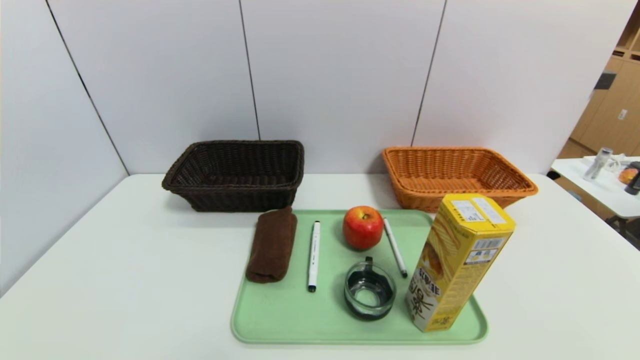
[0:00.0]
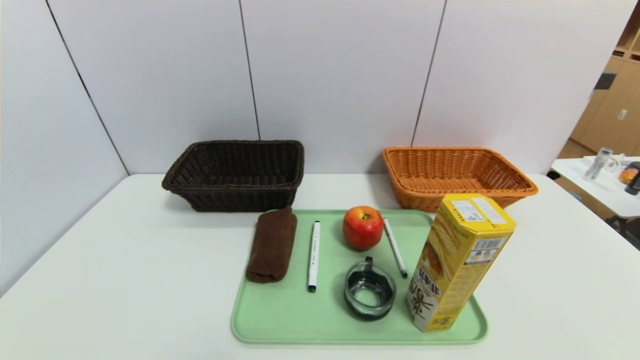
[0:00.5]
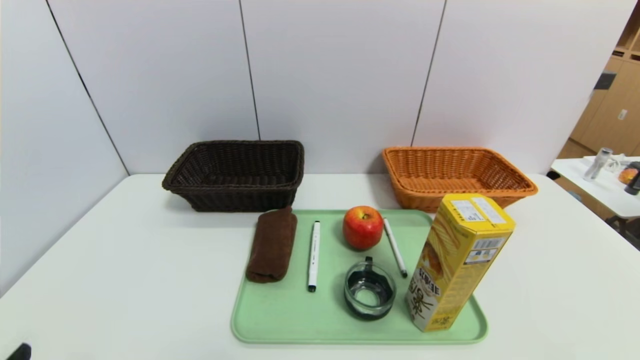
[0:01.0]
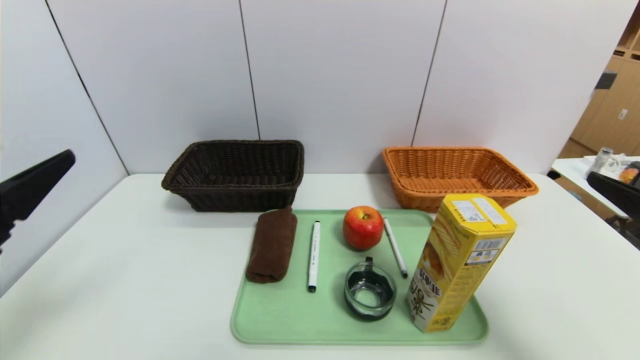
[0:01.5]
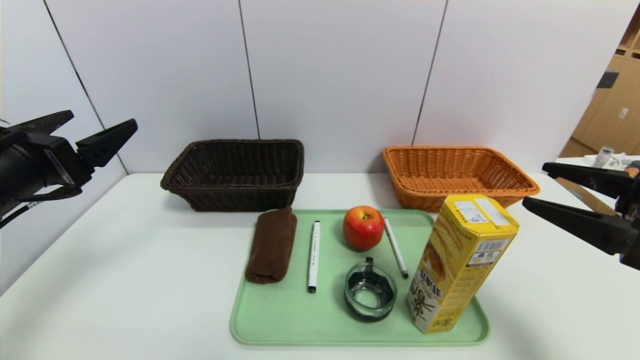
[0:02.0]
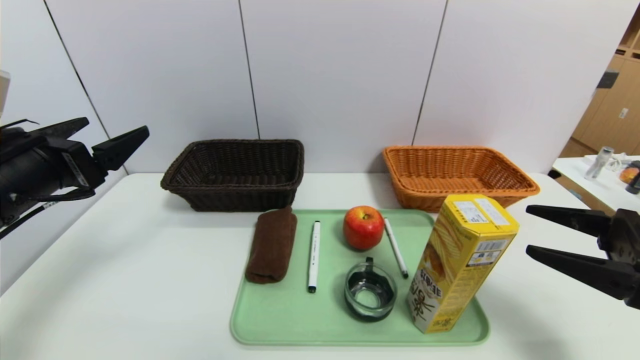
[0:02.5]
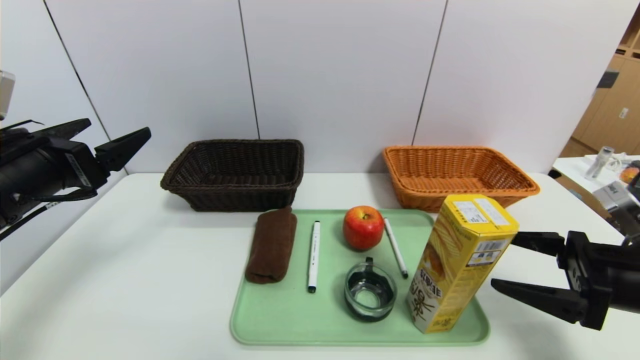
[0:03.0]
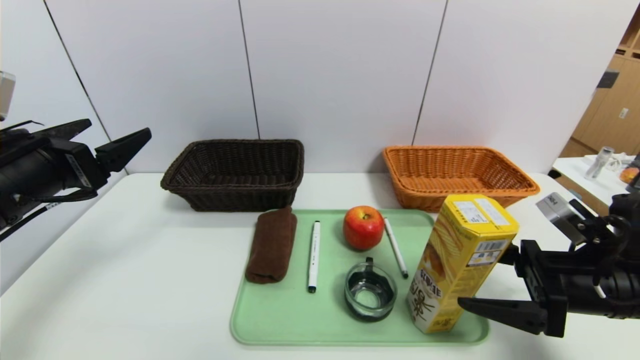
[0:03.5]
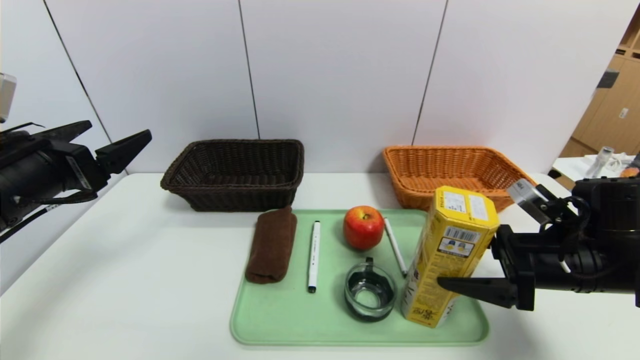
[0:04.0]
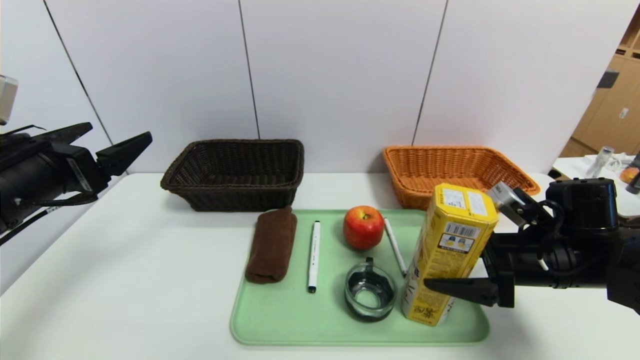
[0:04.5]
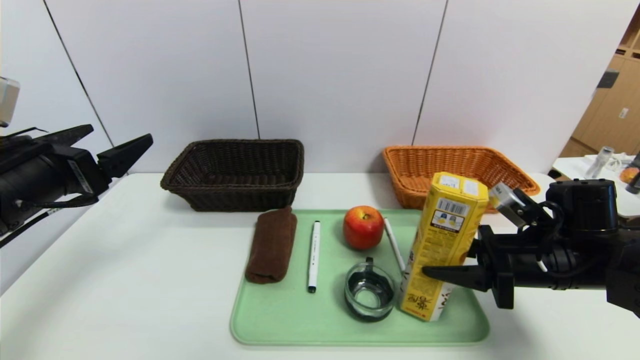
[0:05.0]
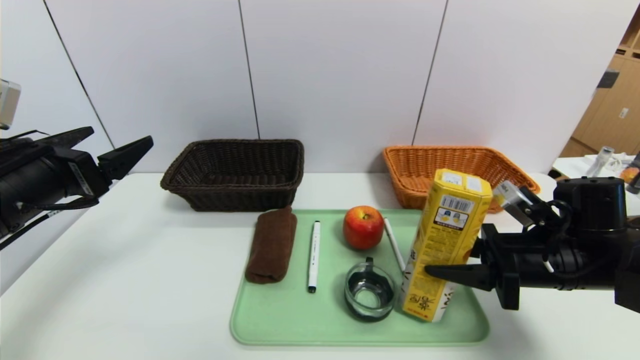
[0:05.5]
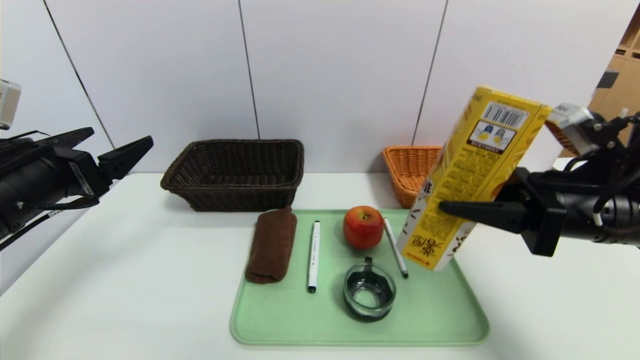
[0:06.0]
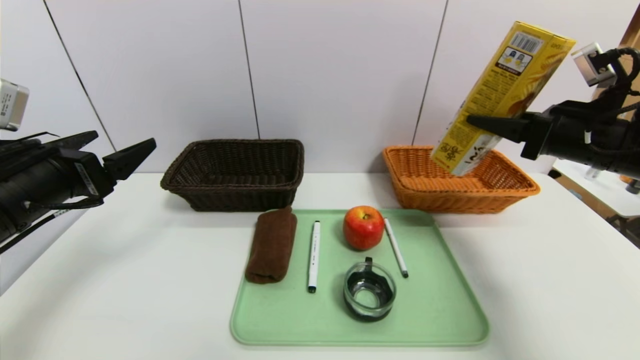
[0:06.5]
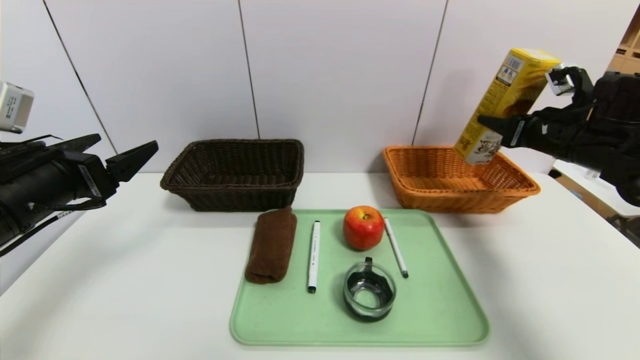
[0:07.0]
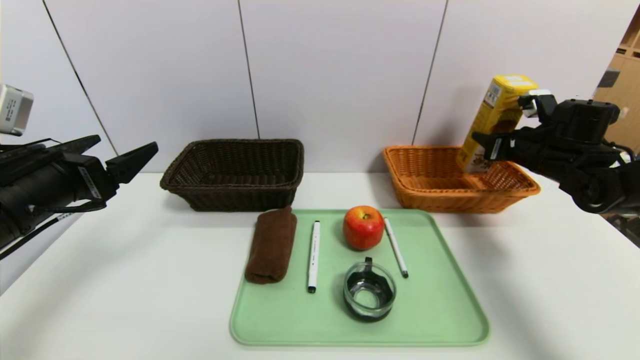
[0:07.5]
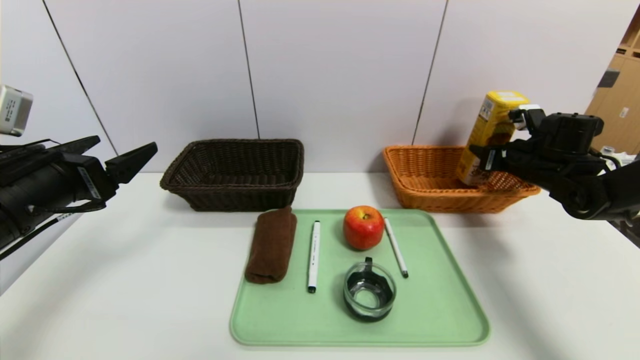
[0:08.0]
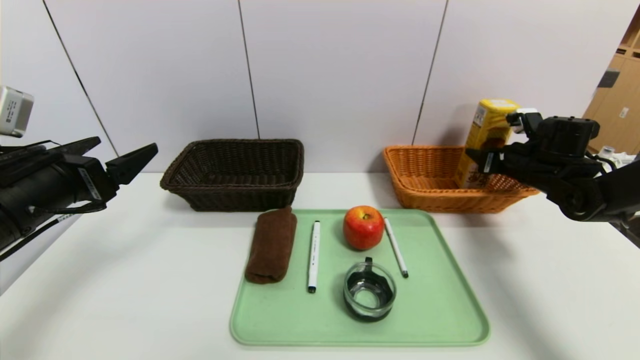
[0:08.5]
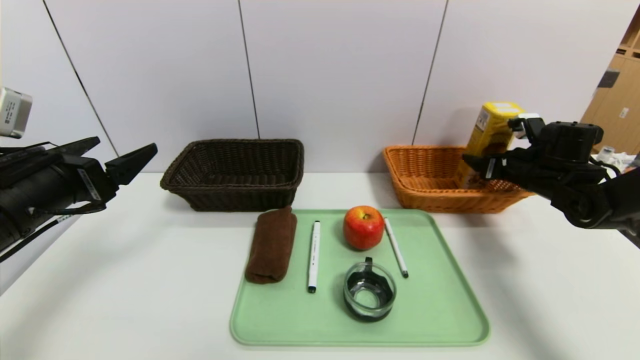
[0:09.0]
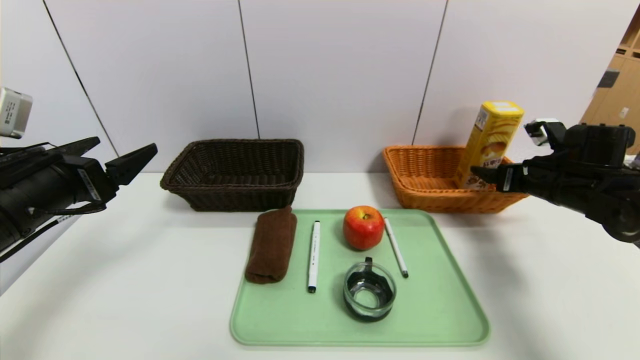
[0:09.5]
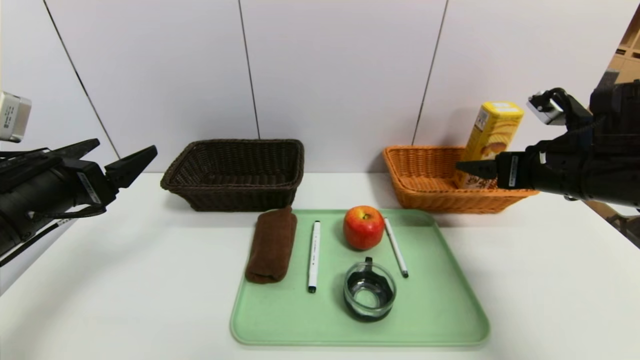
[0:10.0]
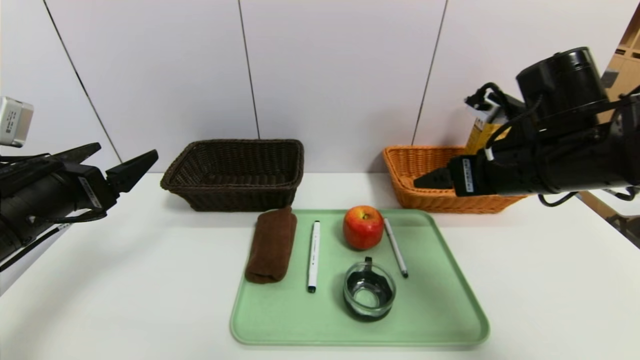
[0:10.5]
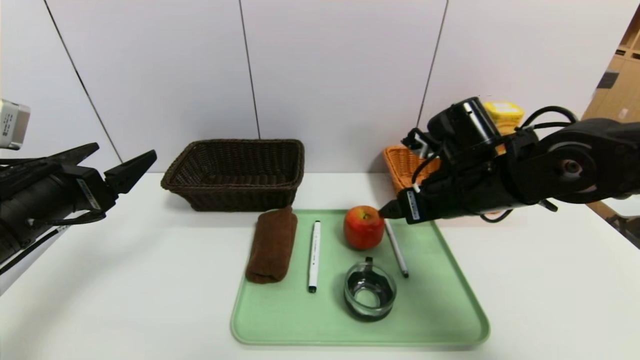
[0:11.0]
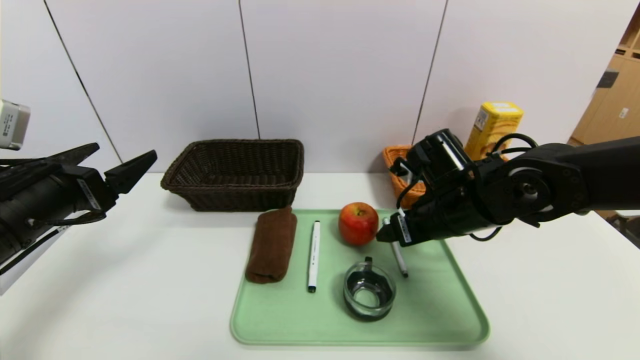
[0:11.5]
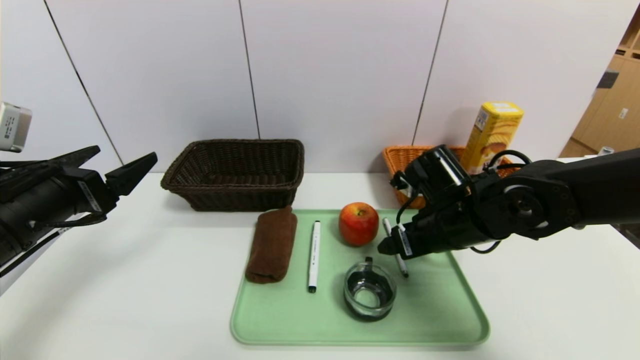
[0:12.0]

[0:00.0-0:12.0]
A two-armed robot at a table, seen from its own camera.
Task of the whole recording: place the food in the right basket with the right gripper, and place the non food items in the left basket with the left gripper.
Step, 0:00.0 to 0:10.0: Grasp the potato chips and put it in the right basket.
0:00.0 to 0:02.0: The two grippers go roughly 25 cm forward and upward.
0:02.0 to 0:04.0: The right gripper shifts about 10 cm downward and forward.
0:04.0 to 0:06.0: The right gripper travels upward by approximately 10 cm, and closes up.
0:06.0 to 0:08.0: The right gripper travels forward and to the right by some 20 cm.
0:08.0 to 0:10.0: The right gripper goes some 15 cm backward, upward and to the left, and opens its fingers.
0:10.0 to 0:12.0: The right gripper is displaced to the left and downward by about 15 cm.

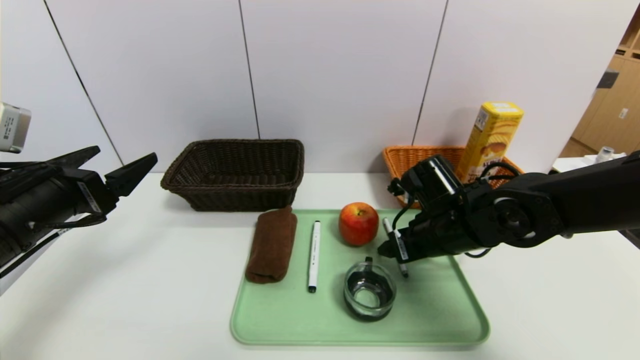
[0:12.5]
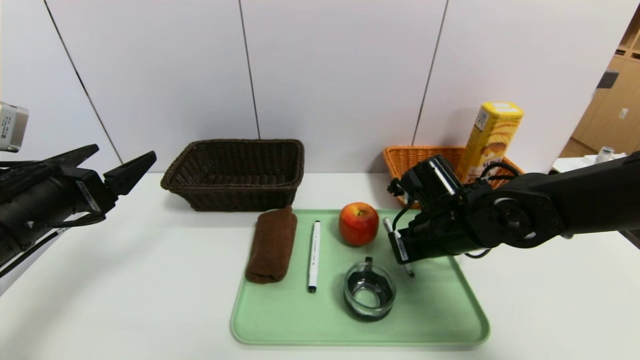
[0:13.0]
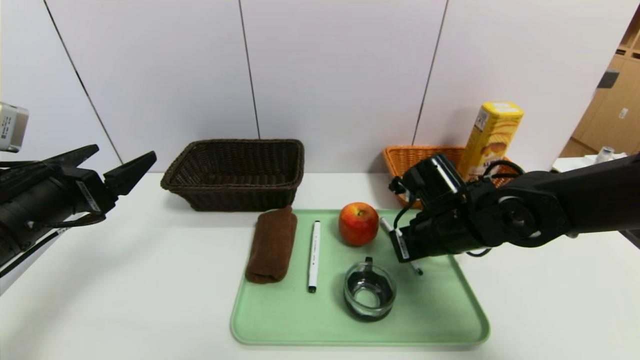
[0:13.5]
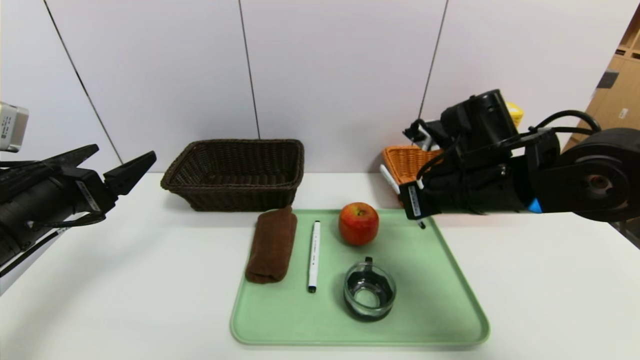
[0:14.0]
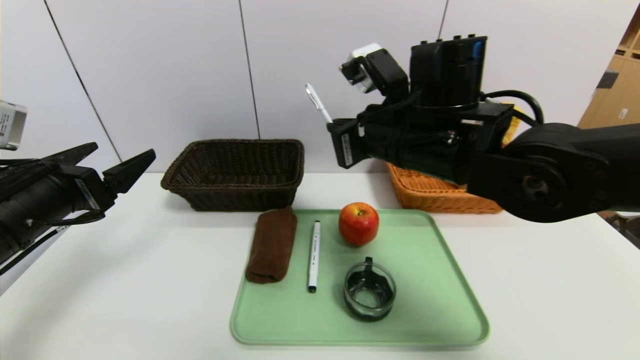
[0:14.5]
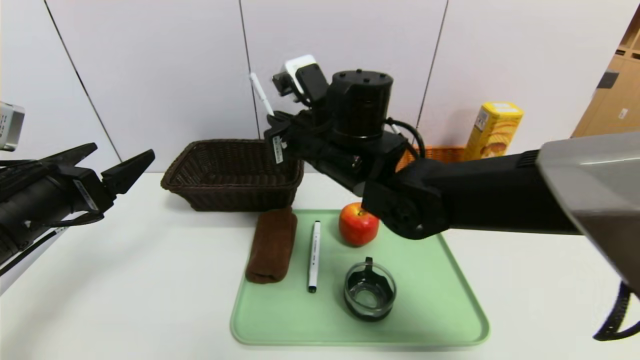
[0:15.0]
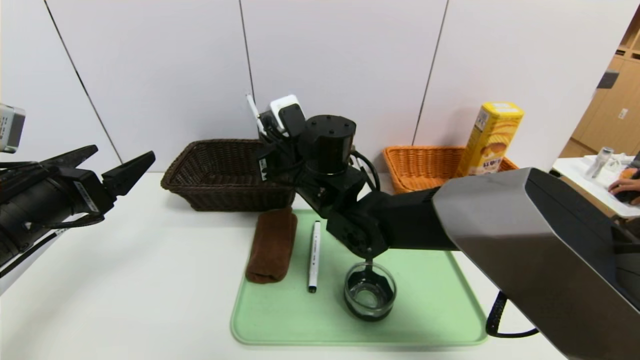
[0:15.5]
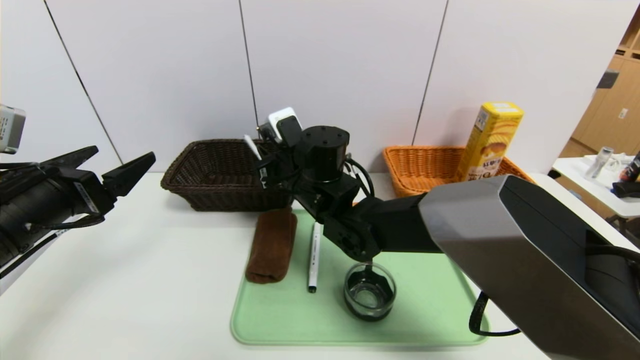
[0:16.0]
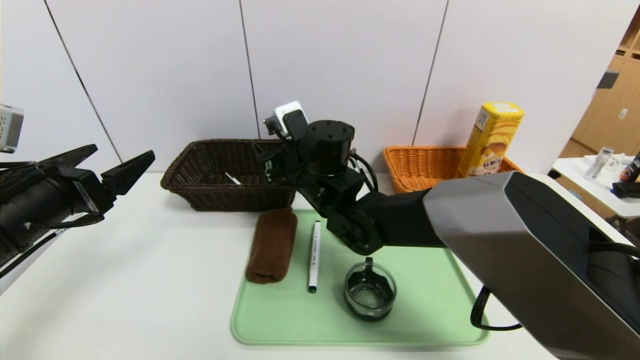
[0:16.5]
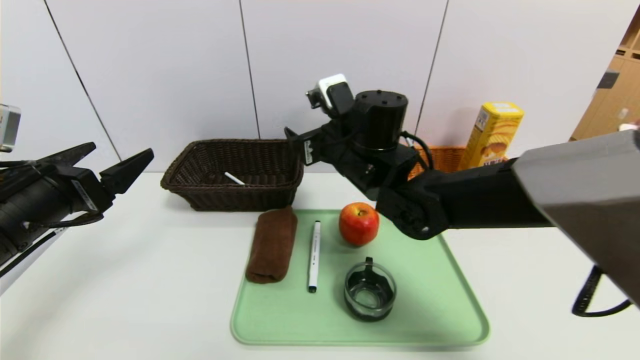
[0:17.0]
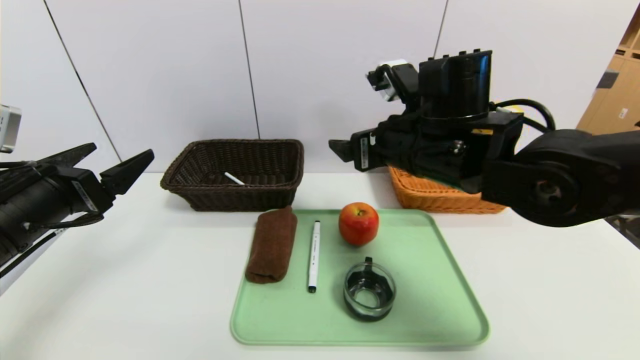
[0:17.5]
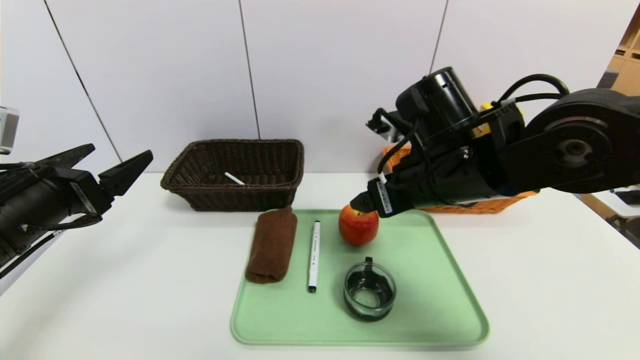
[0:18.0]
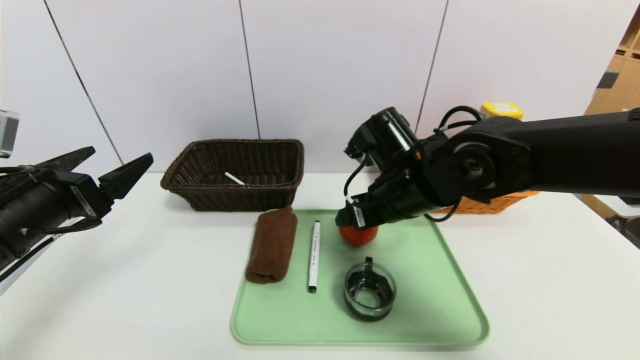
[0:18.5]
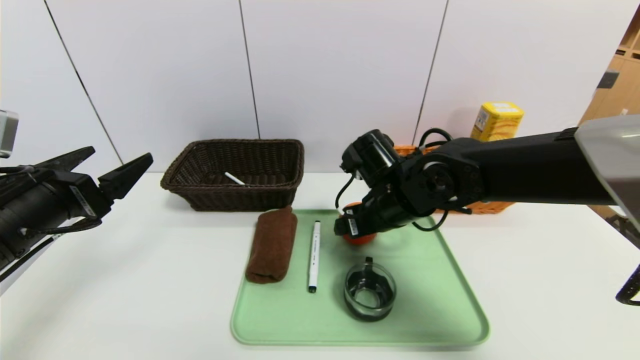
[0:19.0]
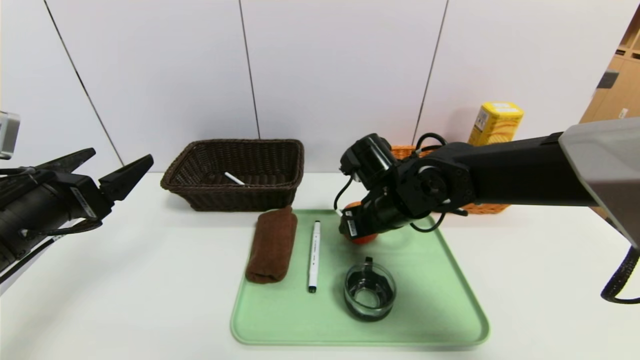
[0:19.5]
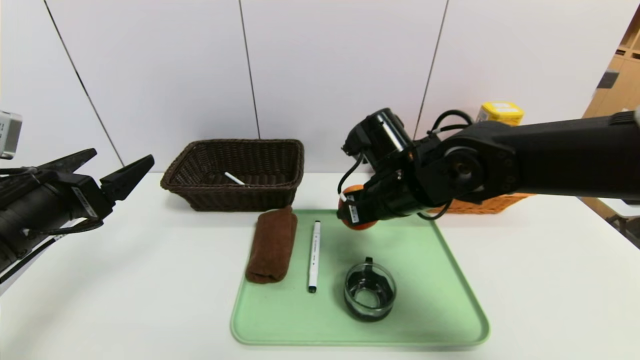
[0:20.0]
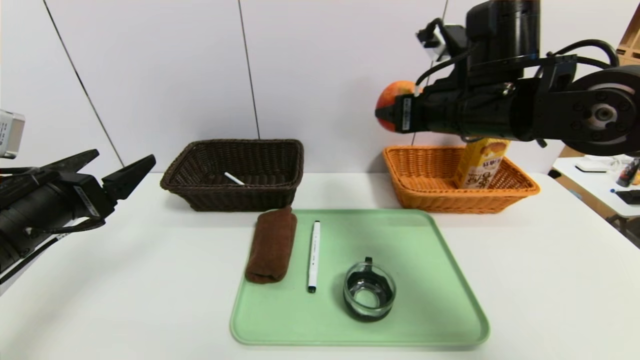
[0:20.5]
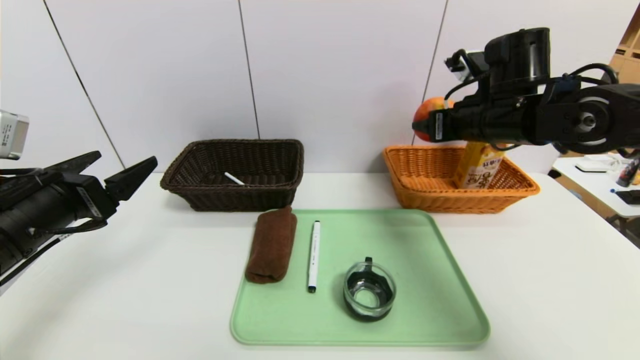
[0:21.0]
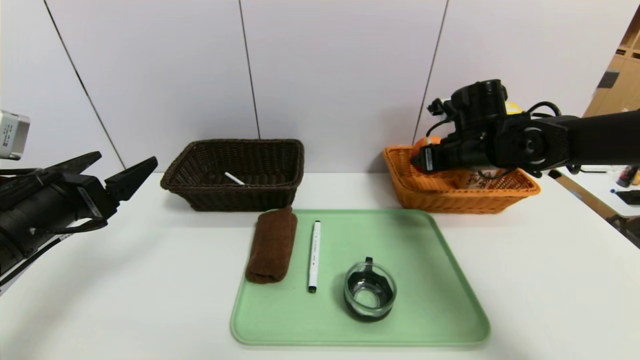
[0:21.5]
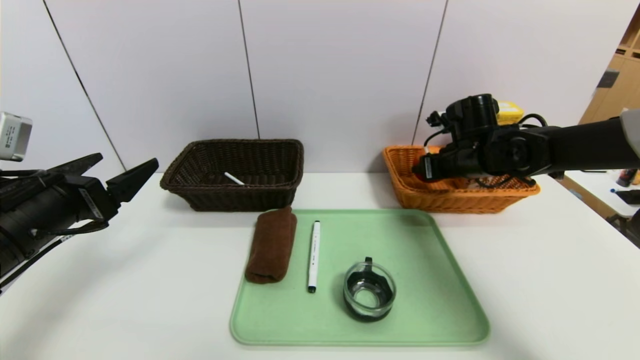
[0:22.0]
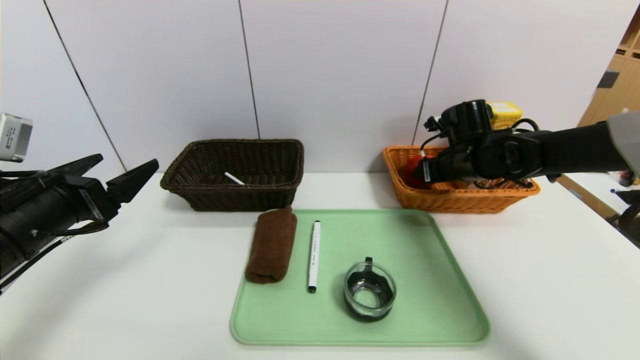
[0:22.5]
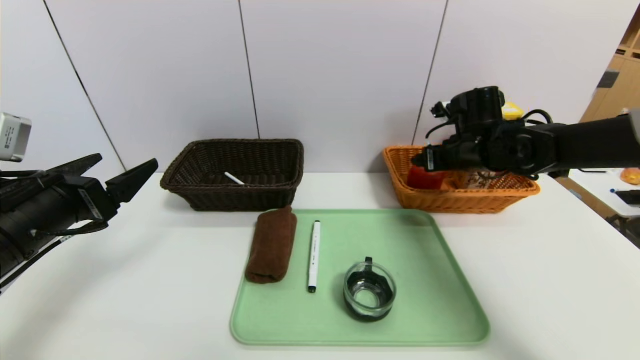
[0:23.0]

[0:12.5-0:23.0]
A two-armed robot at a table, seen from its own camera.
Task of the whole recording: place the food in the right basket with the right gripper, and place the non food items in the left basket with the left gripper.
0:12.5 to 0:14.5: The right gripper is displaced upward and to the left by roughly 15 cm, and closes.
0:14.5 to 0:16.5: The right gripper shifts about 15 cm to the left, downward and forward, and opens.
0:16.5 to 0:19.0: The right gripper goes approximately 10 cm to the right.
0:19.0 to 0:21.0: The right gripper moves to the right and upward, some 15 cm.
0:21.0 to 0:23.0: The right gripper heads downward and forward, covering about 10 cm.
